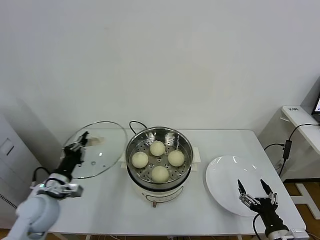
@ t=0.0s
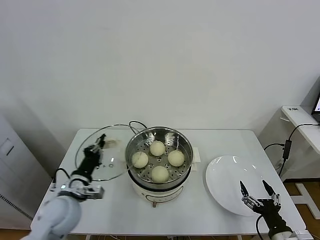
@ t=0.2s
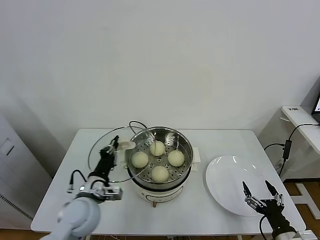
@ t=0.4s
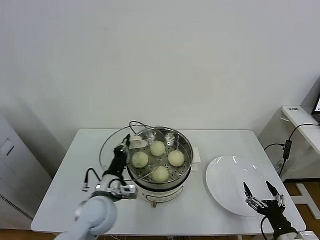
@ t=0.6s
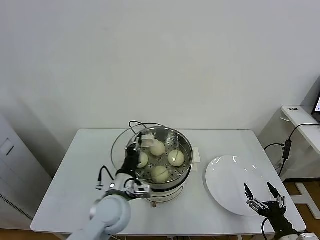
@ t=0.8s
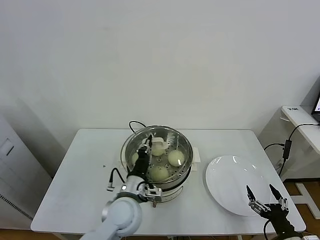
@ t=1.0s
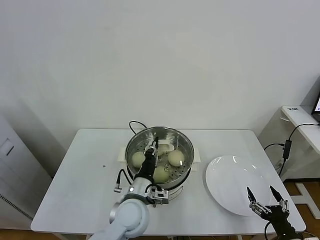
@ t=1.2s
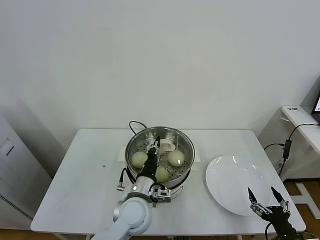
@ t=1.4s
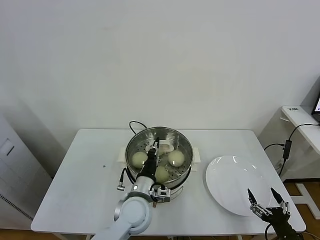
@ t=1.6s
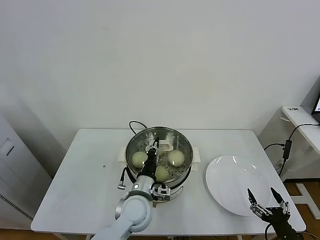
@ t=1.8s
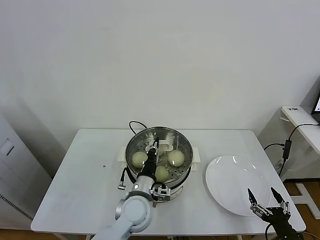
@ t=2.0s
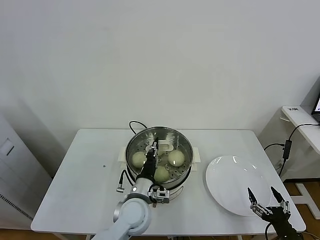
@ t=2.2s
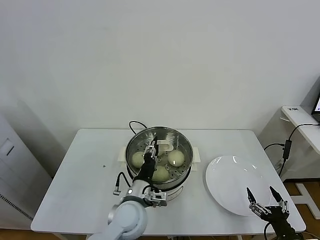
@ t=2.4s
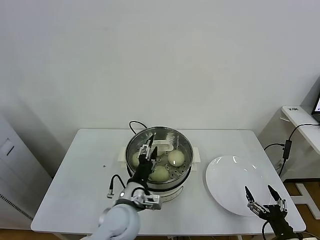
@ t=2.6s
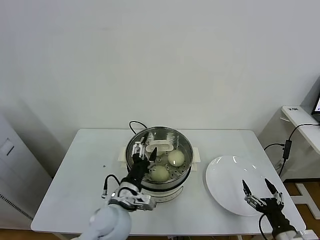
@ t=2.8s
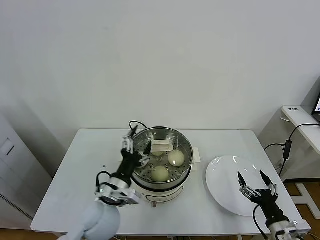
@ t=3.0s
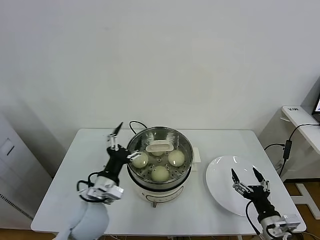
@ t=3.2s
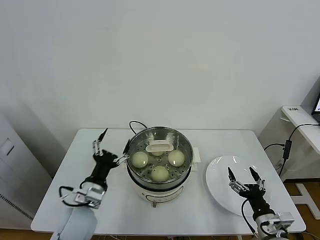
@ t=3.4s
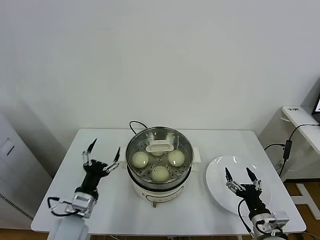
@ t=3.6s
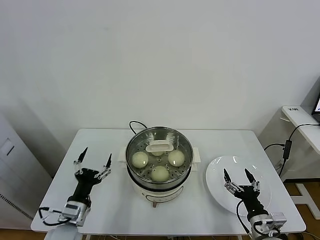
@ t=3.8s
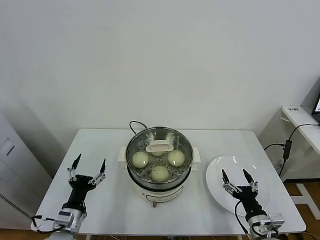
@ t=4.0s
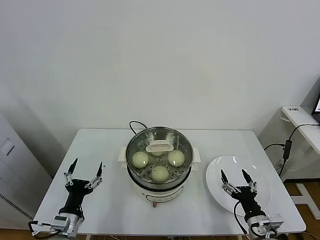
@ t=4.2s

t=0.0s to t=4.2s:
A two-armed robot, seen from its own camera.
Task of the whole recording: take steamed baozi put them in steamer.
Step, t=0.0s to t=2.6s: Place the pot lid on the steamer with left gripper.
t=0.0s to t=1.4s: The left gripper heads to the right, covering roughly 25 cm.
t=1.4s to t=2.8s: The left gripper changes place by some 5 cm, and opens.
t=2.8s to t=4.2s: The right gripper moves forward and to the left, approximately 10 cm. Meanwhile the left gripper moves to the left and downward, some 20 cm.
